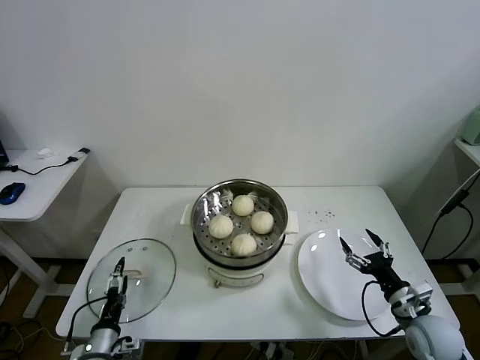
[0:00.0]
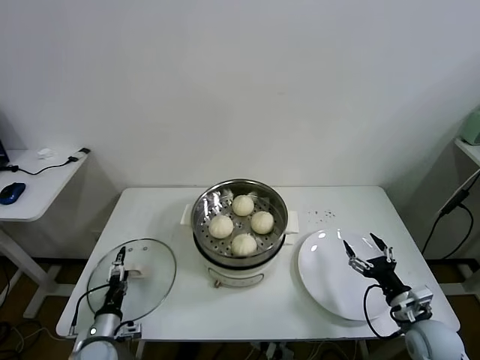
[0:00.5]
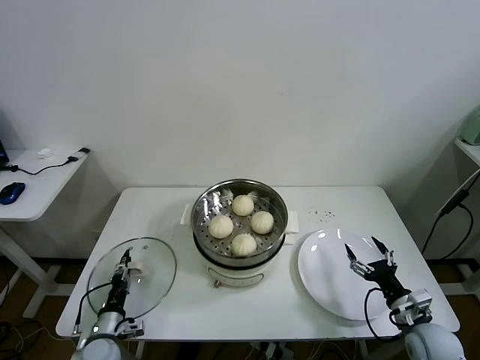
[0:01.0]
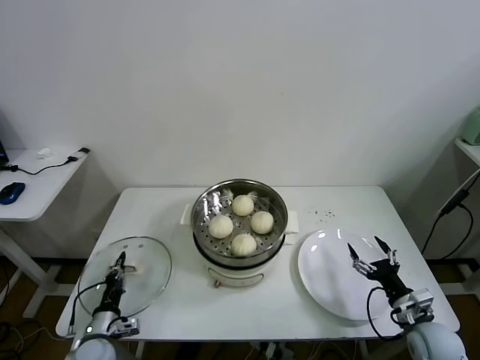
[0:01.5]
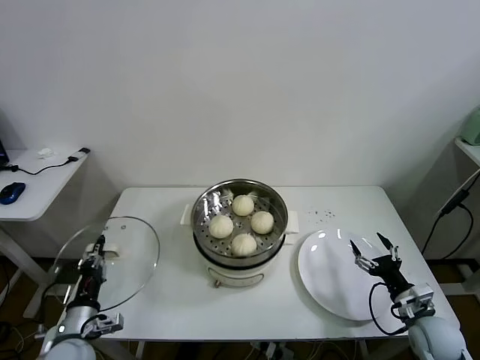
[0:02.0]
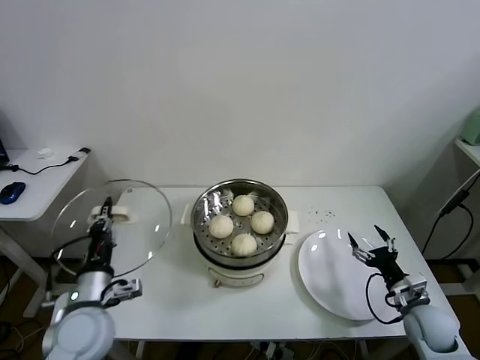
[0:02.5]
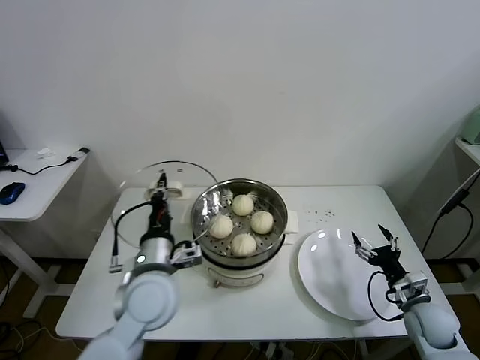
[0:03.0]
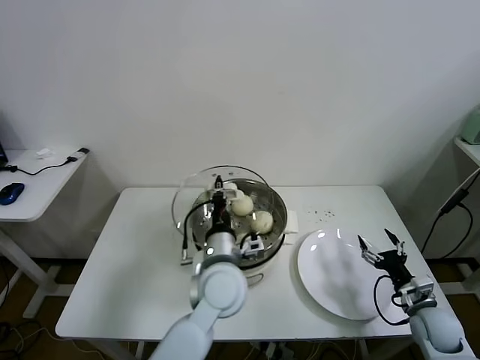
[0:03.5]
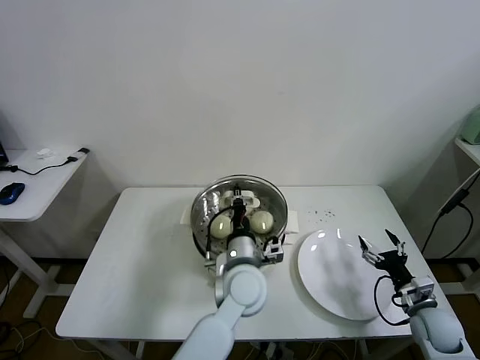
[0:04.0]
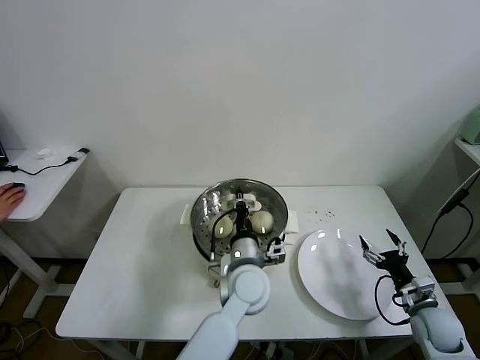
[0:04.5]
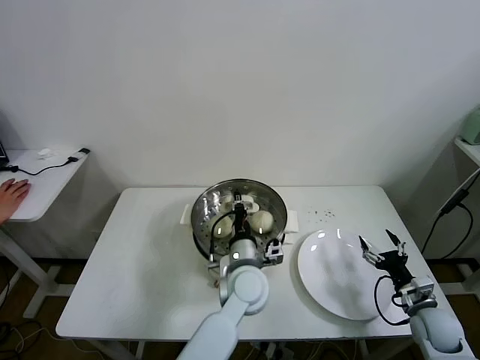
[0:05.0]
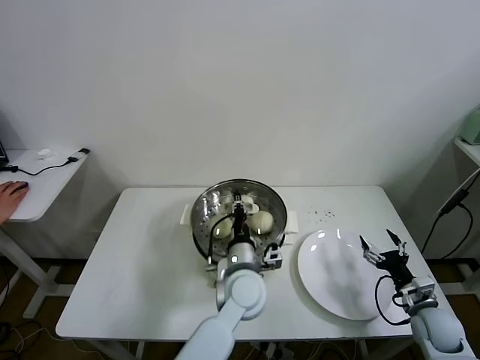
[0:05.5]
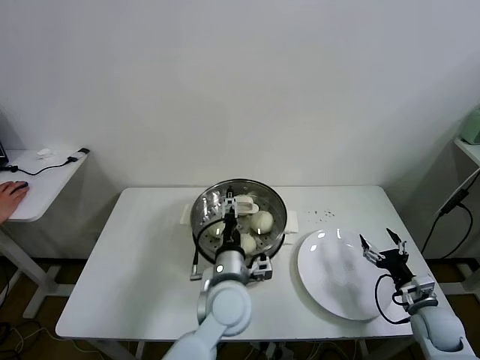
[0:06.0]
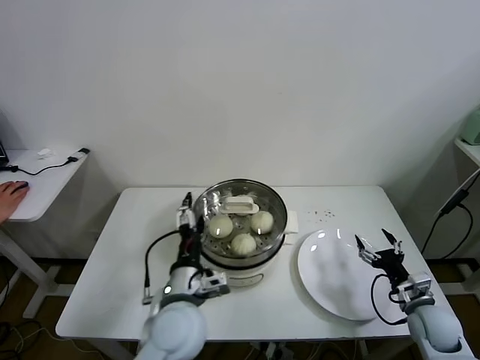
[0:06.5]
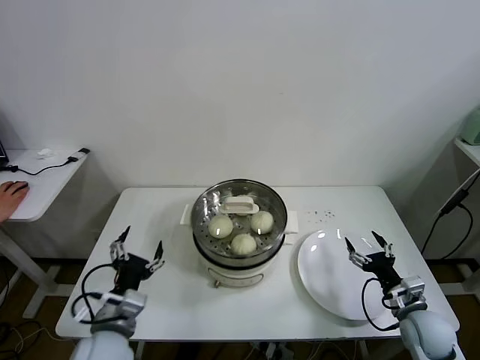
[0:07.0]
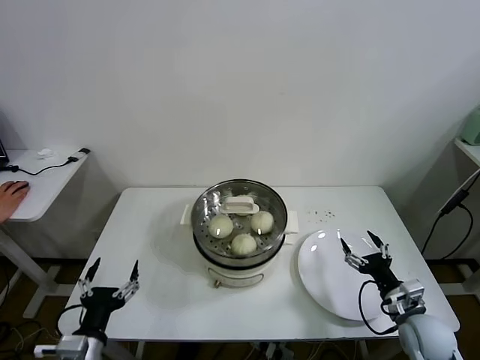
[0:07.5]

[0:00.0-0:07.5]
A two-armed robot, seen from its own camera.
Task of the whole recording: take steamed baozi put them in steamer.
Step, 0:01.5 to 0:05.5: Place the pot lid on the steamer with left gripper.
0:00.0 to 0:02.0: The left gripper is displaced upward by approximately 5 cm, and closes up.
0:02.0 to 0:04.0: The left gripper heads to the right, covering approximately 35 cm.
0:04.0 to 0:05.5: There are only small adjustments of the grippers.
0:05.5 to 0:07.5: The right gripper goes roughly 5 cm to the left. The left gripper is displaced to the left and backward by approximately 35 cm, and opens its fingers.
